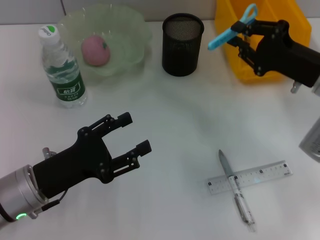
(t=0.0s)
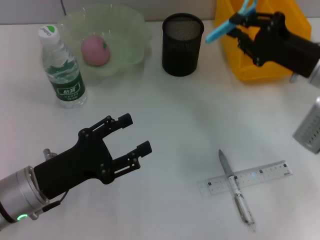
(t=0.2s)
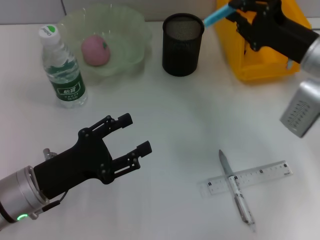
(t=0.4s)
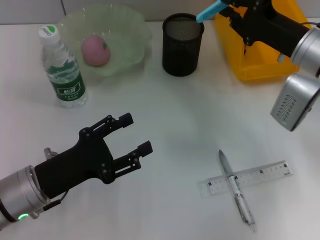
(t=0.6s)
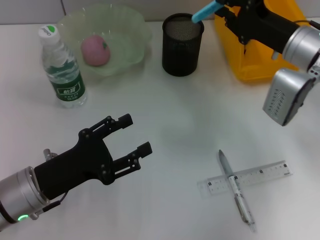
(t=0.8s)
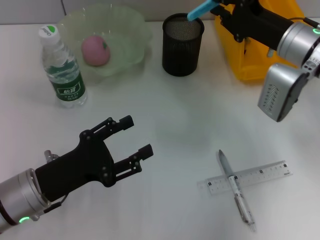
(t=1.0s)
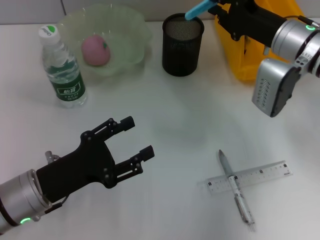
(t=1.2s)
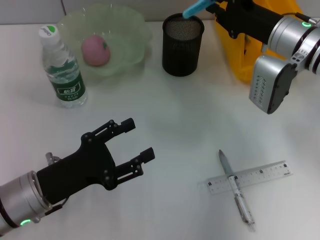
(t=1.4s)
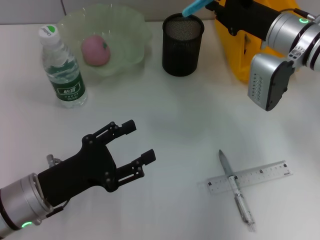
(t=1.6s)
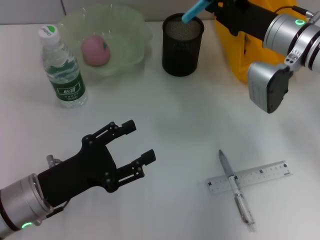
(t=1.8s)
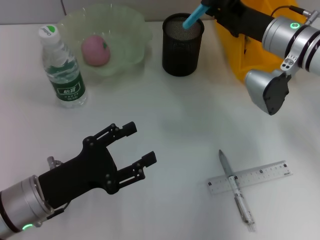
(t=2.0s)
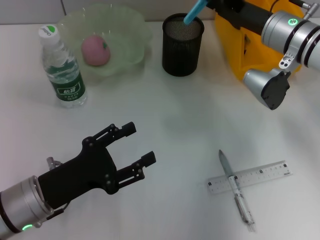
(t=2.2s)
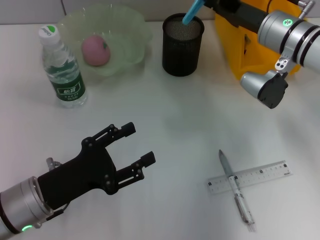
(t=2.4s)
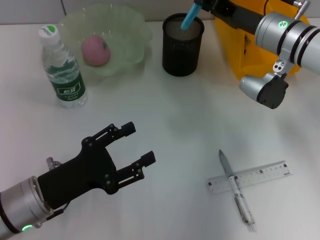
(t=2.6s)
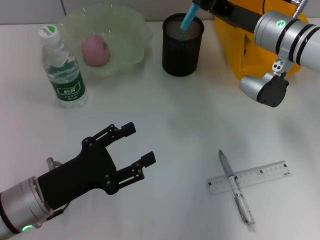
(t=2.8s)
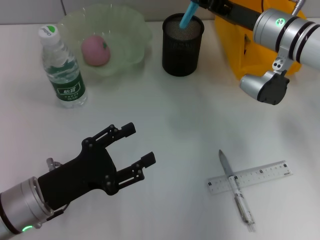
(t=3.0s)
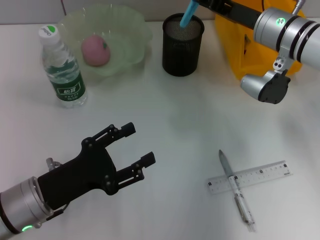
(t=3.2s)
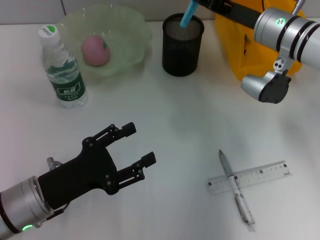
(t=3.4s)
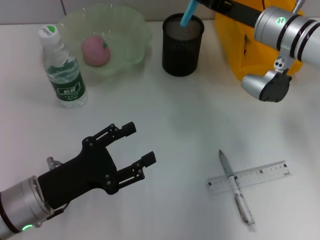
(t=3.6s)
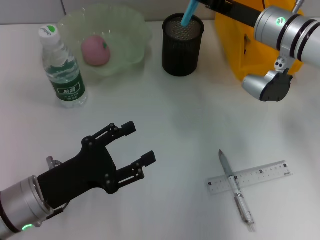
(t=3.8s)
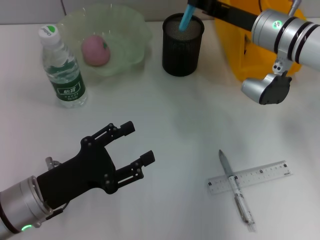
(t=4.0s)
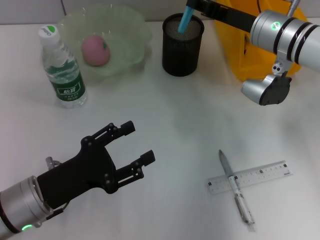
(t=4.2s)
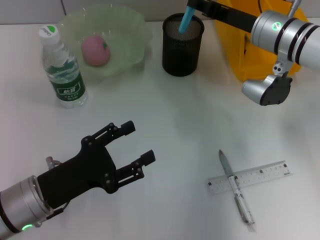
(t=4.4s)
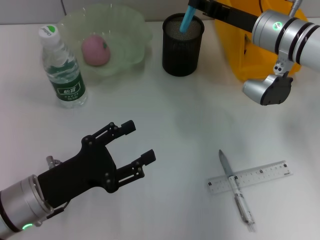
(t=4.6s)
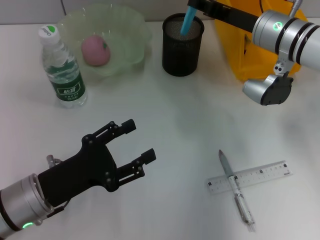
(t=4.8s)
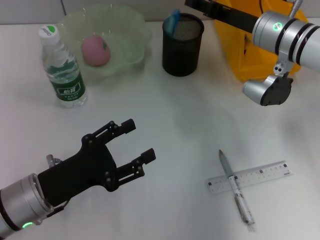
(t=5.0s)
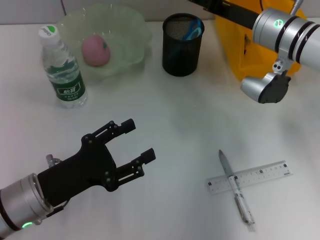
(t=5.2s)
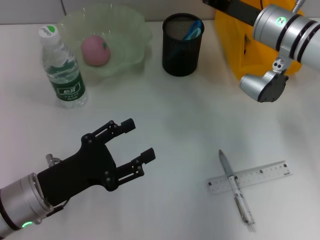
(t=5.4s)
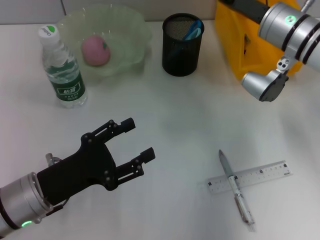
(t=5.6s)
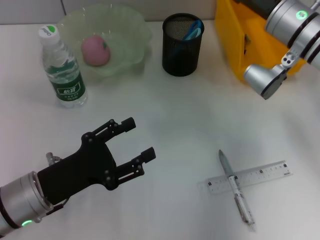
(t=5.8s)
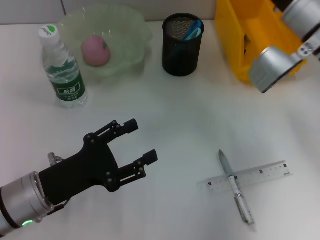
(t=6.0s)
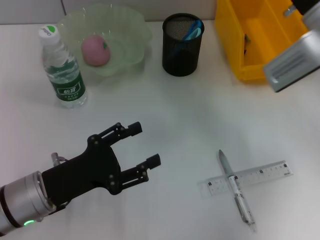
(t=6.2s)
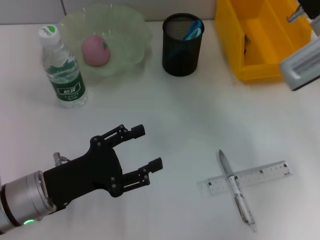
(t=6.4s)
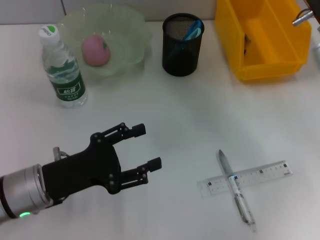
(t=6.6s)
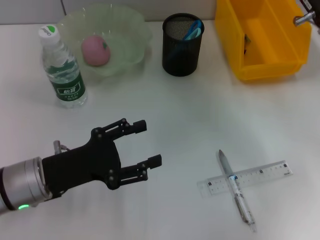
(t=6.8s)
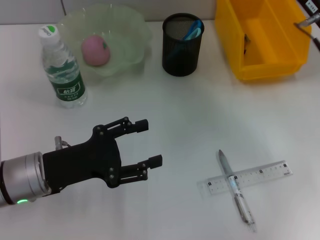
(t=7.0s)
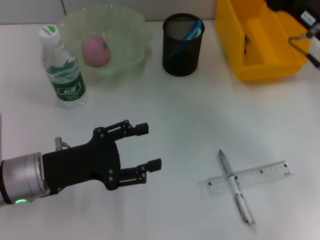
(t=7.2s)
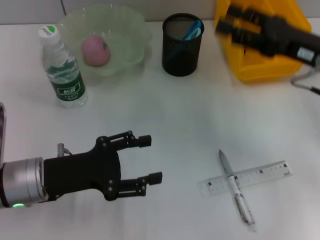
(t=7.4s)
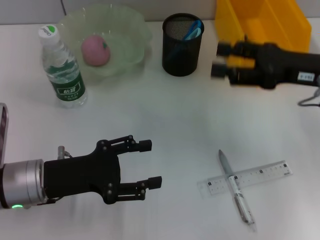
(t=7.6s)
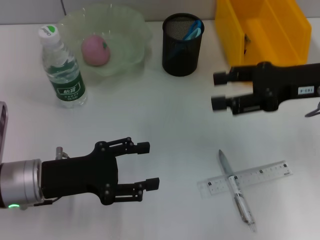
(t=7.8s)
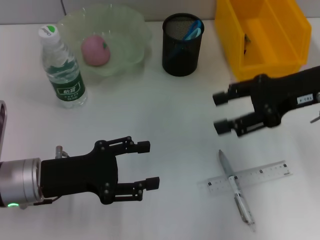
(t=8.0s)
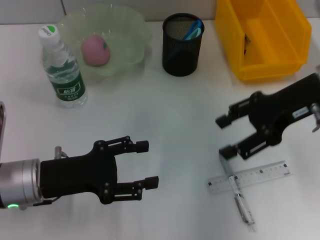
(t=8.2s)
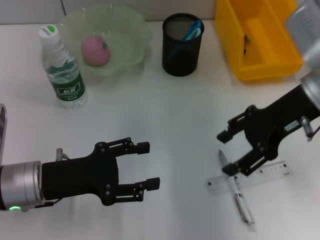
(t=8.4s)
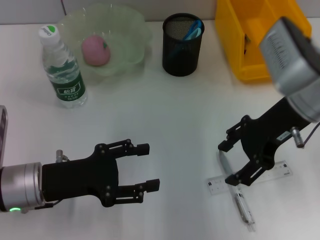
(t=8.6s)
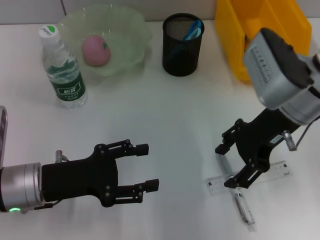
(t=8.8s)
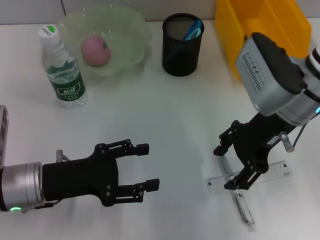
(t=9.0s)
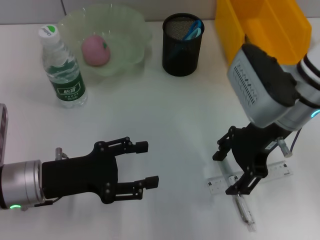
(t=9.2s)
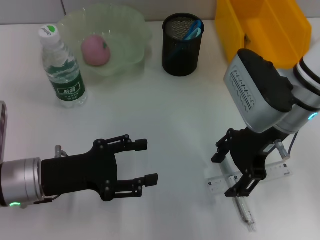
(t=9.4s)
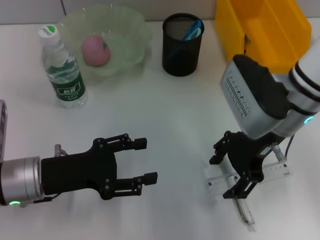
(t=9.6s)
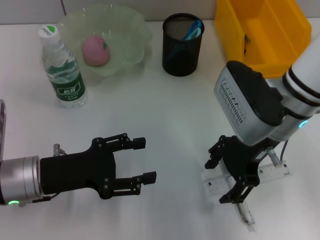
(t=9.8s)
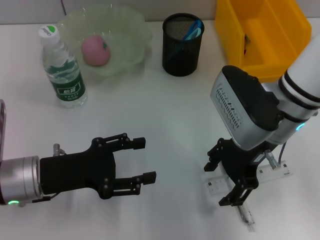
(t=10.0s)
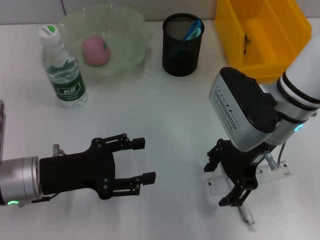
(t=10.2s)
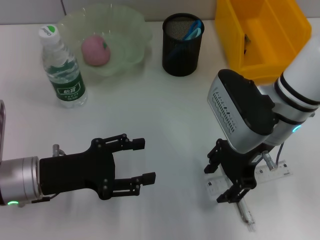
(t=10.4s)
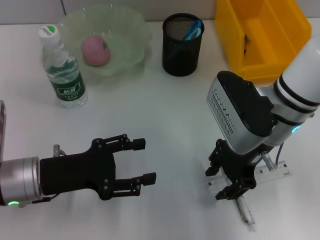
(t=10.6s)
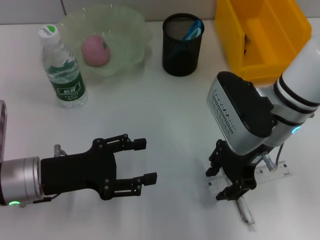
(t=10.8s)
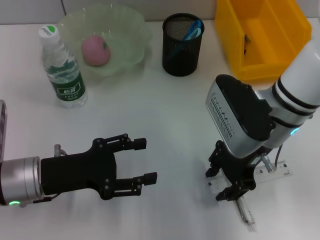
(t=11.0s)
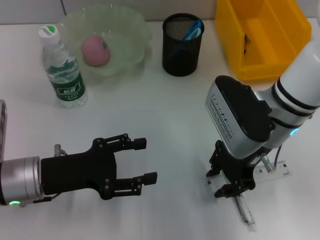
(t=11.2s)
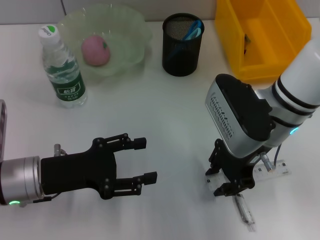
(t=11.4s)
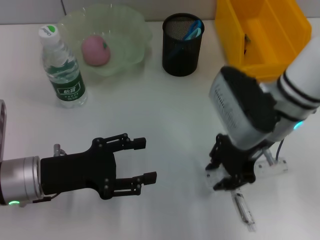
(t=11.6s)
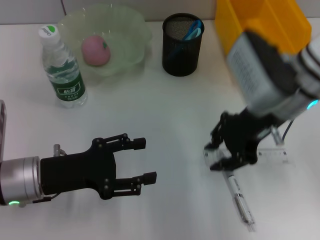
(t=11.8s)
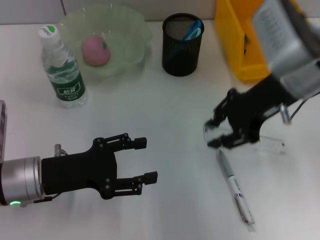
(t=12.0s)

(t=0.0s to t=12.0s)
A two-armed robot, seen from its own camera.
Step, t=0.0s - t=5.2s: Place the blue scissors into the pen holder with the right hand.
Step, t=5.4s - t=11.2s: Grab the ruler with the right hand.
t=0.0s - t=1.6s: The right gripper heads forward and to the left, covering some 10 cm.
t=3.0s - t=4.4s: The grippers make only small movements.
t=4.4s - t=6.0s: The right gripper opens up.
t=6.0s - t=7.6s: The right gripper heads backward and to the right, covering approximately 10 cm.
t=7.6s - t=9.0s: The right gripper is displaced to the left by about 10 cm.
t=9.0s - t=10.4s: The grippers stay close to where they were, moving slightly.
t=10.4s - t=12.0s: The right gripper shifts about 5 cm upward, and closes its fingers.

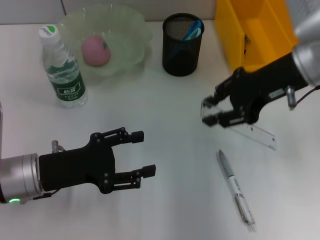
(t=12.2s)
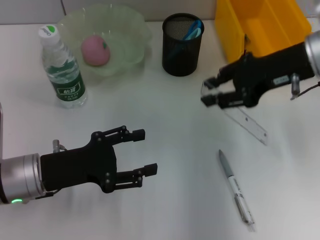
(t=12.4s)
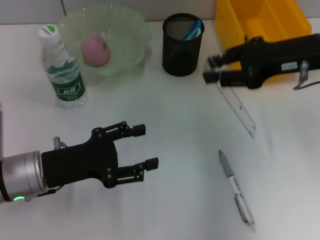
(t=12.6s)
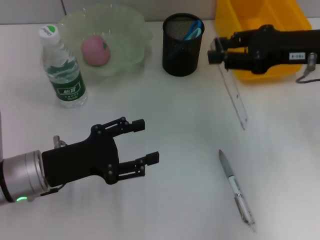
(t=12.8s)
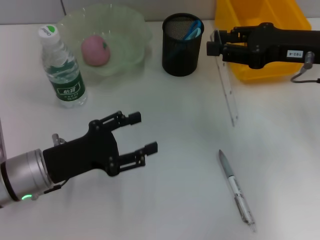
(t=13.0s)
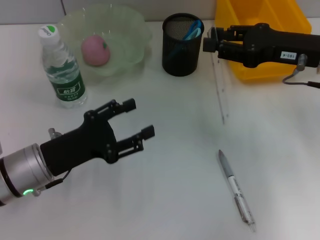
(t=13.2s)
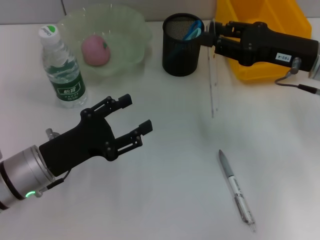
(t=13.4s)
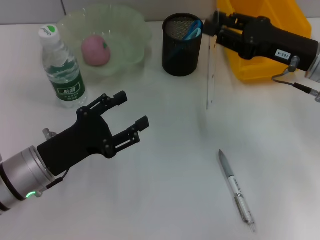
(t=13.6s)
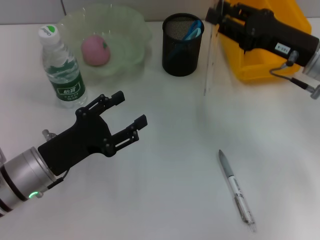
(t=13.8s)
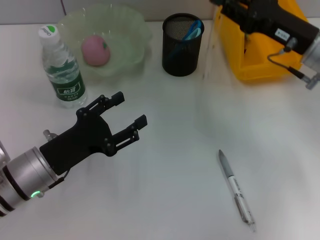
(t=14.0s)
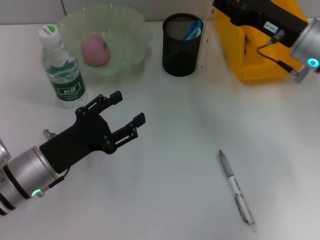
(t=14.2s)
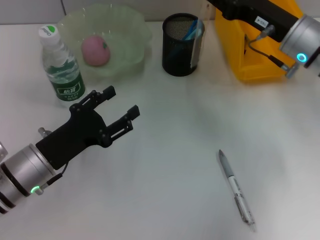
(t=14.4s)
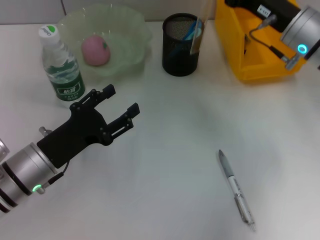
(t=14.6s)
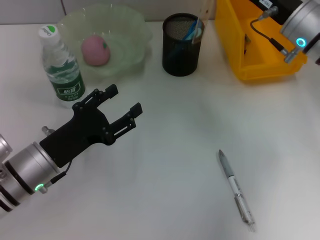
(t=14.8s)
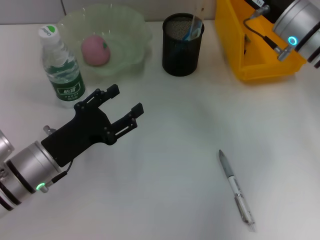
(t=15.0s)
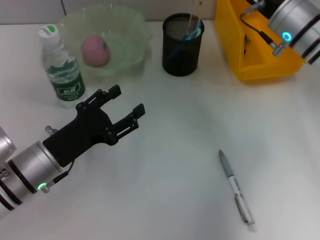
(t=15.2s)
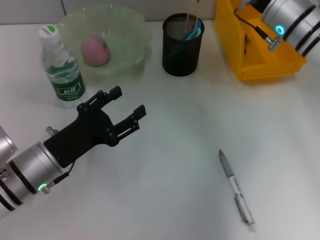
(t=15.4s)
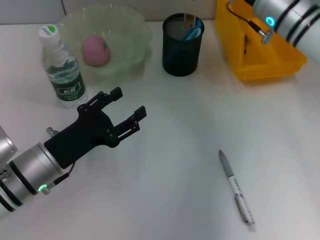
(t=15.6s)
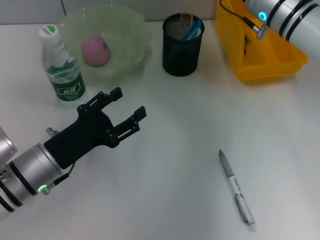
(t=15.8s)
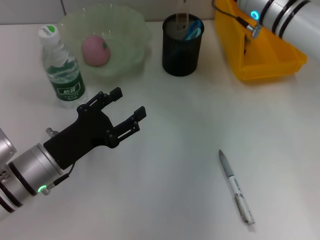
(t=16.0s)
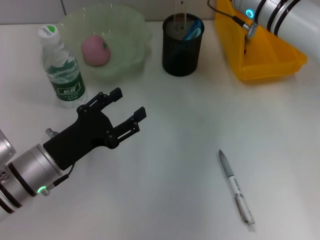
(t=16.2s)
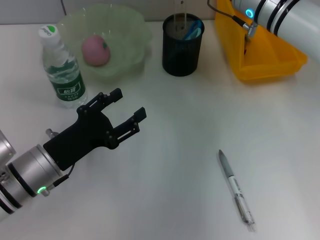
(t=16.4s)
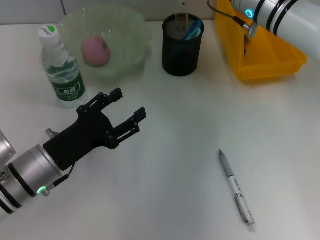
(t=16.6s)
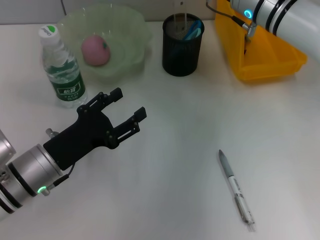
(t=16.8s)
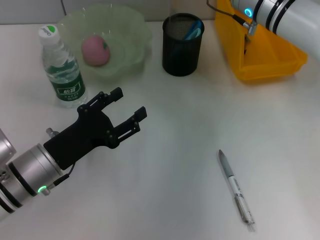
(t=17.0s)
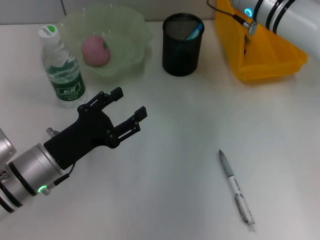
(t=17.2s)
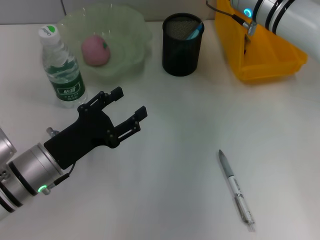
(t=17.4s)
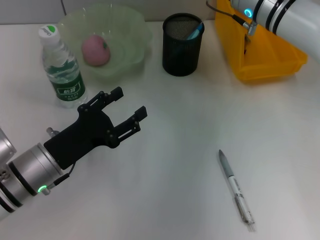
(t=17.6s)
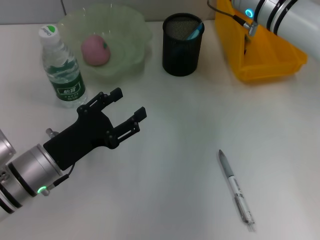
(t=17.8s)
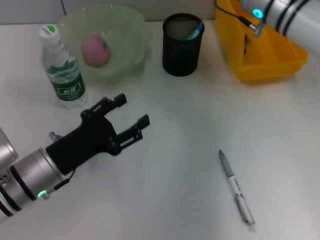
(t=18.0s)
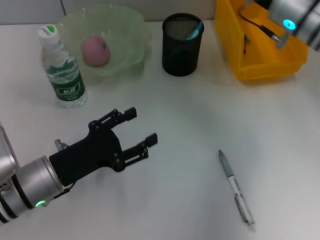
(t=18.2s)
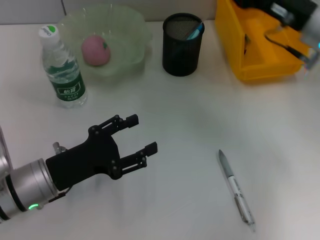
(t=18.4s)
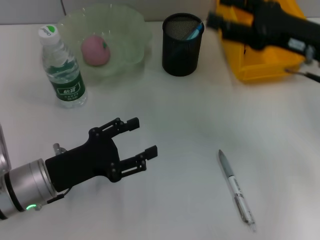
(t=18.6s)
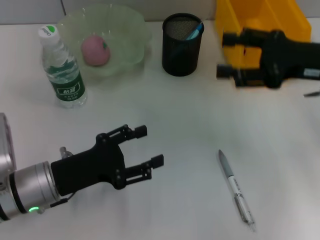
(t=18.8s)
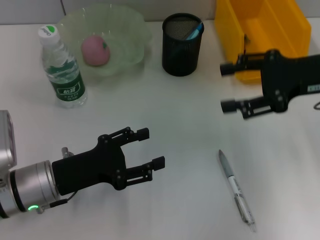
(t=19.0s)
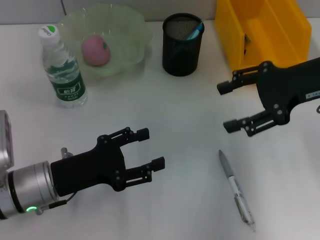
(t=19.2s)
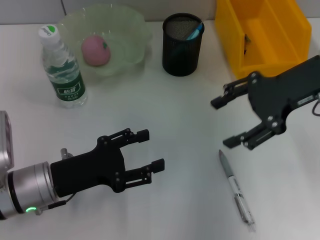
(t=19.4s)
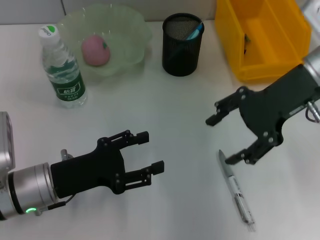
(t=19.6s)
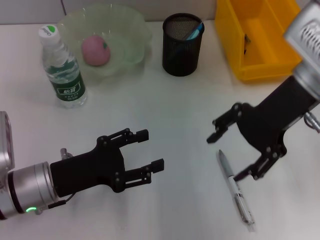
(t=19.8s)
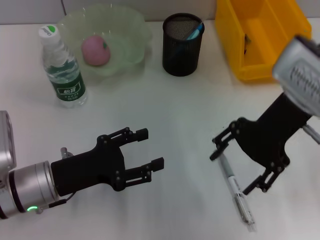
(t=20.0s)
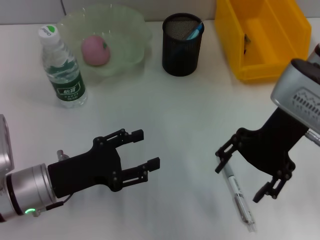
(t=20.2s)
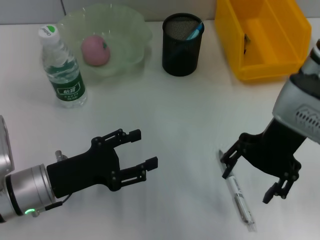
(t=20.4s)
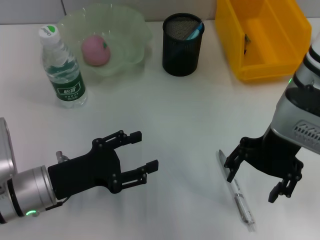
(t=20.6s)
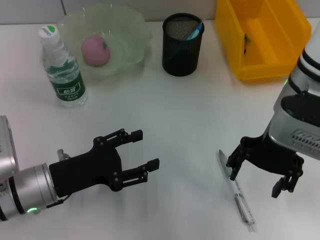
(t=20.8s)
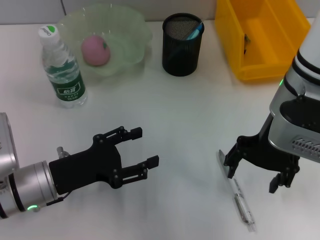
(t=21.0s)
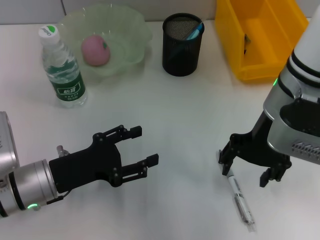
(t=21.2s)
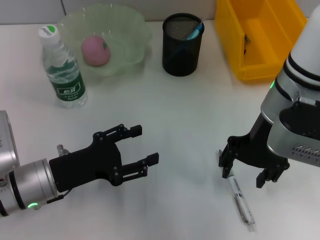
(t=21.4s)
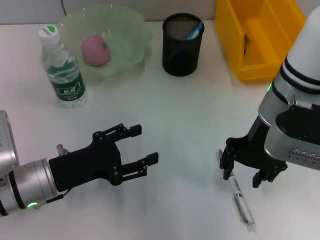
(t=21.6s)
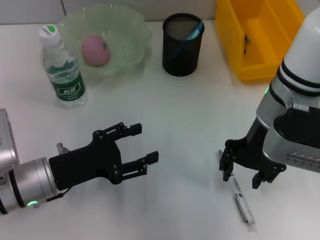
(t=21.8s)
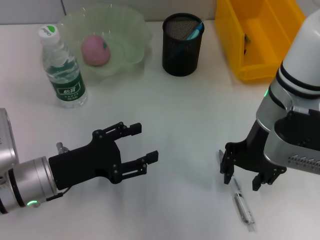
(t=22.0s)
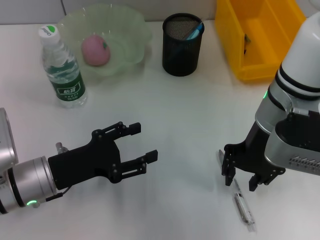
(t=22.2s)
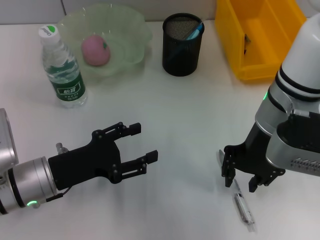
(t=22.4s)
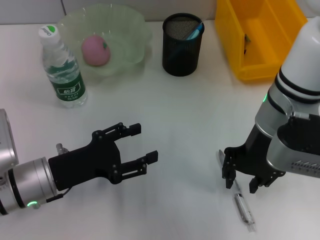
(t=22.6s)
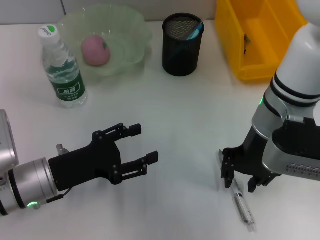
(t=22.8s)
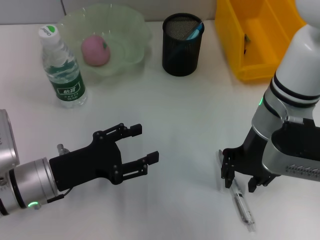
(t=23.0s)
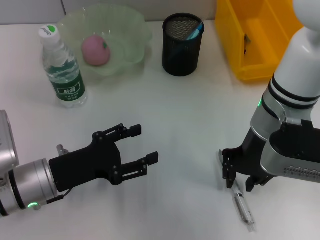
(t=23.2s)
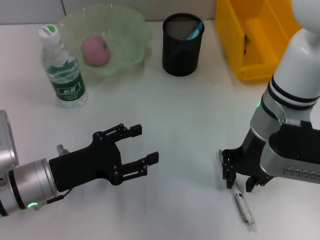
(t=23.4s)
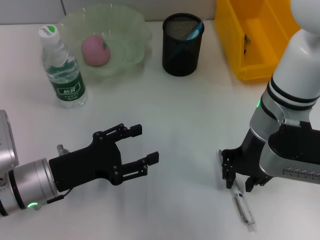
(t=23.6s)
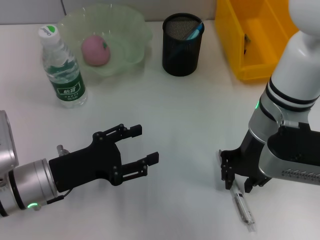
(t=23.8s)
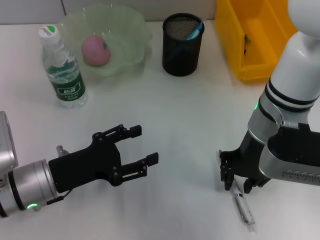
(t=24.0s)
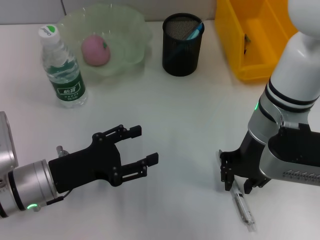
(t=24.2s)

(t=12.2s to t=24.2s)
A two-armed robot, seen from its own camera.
Step, t=12.2s - t=17.4s: Place the ruler into the pen holder with the right hand.
t=12.2s - t=13.8s: The right gripper is displaced downward by approximately 5 cm.
t=13.8s - t=15.2s: The right gripper heads forward, covering approximately 5 cm.
t=15.2s - t=16.6s: The right gripper ends up roughly 5 cm from where it was.
t=16.6s - t=18.2s: The right gripper travels to the right by roughly 5 cm, and opens up.
t=18.2s - t=19.8s: The right gripper shifts about 5 cm backward, and reaches some 5 cm to the right, then returns.
t=19.8s - t=21.2s: The right gripper moves approximately 5 cm.
t=21.2s - t=22.6s: The right gripper closes up.
t=22.6s - t=24.2s: The grippers make only small movements.
